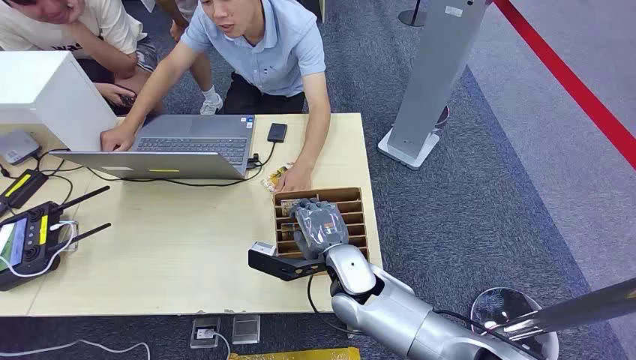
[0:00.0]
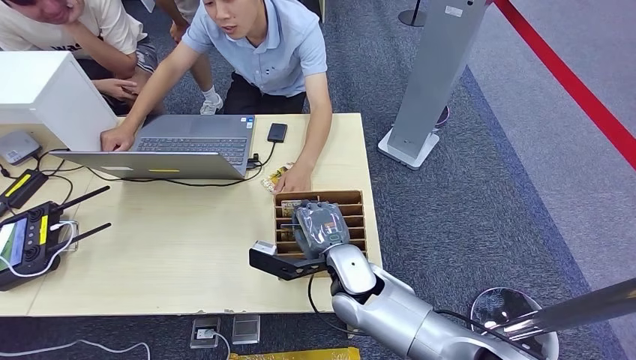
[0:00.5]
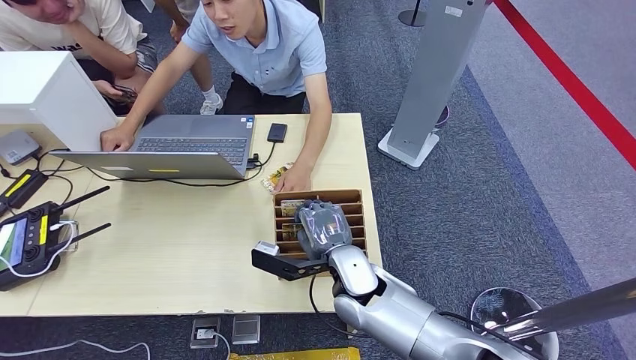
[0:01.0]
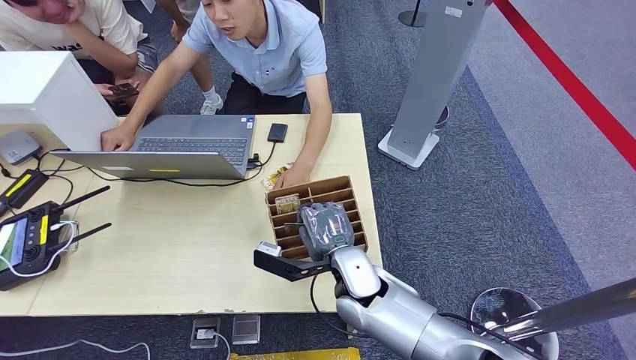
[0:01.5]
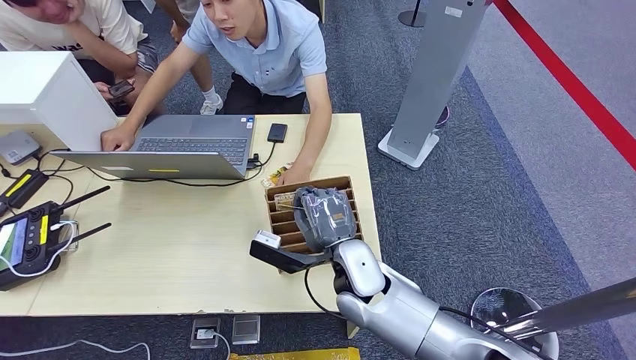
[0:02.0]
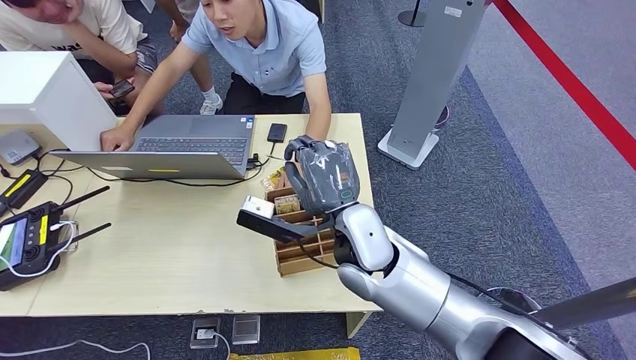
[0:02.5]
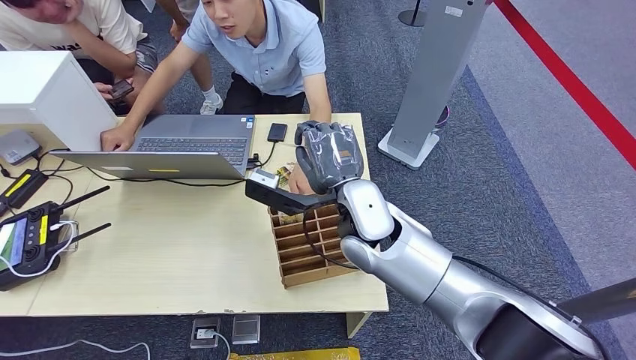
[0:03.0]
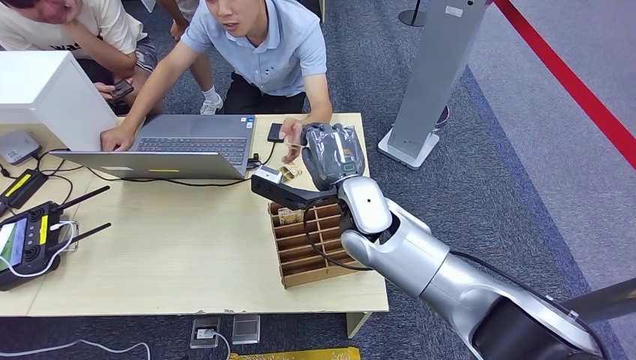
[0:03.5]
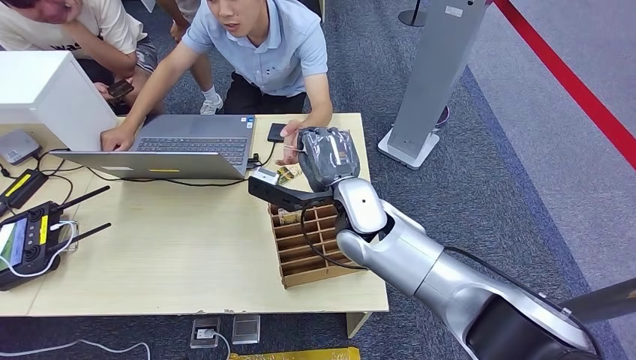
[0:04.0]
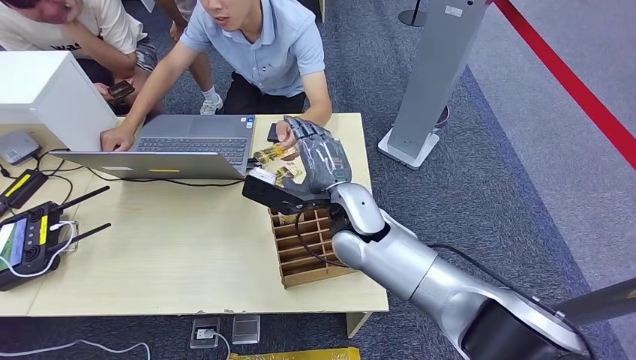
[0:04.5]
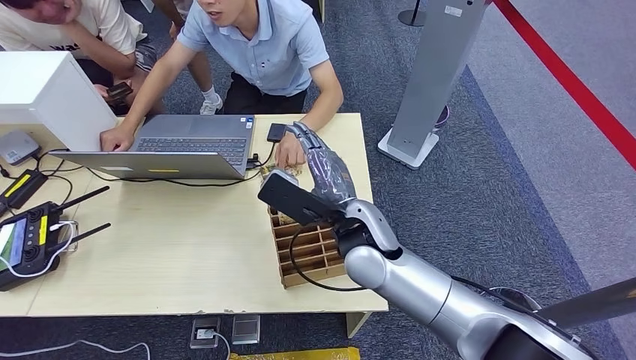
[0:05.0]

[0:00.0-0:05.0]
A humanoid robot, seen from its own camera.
Step, 0:00.0 to 0:02.0: Pick up the room card from the card holder.
Step, 0:02.5 to 0:05.0: Hand the room card to the target.
